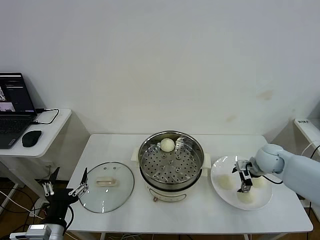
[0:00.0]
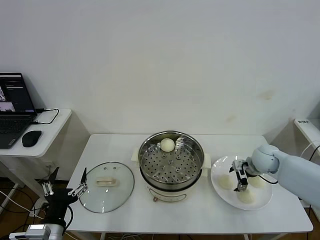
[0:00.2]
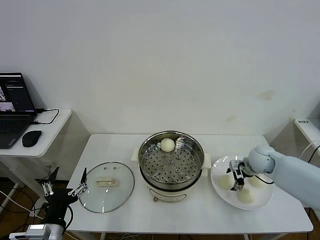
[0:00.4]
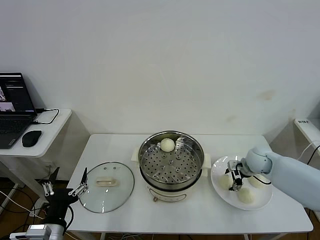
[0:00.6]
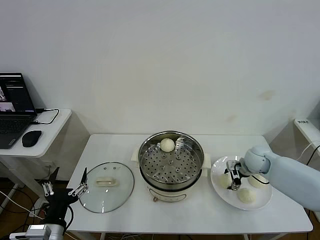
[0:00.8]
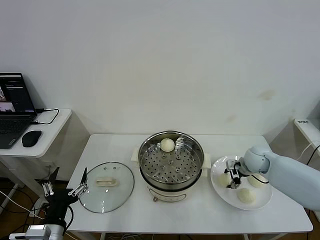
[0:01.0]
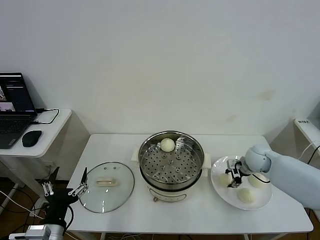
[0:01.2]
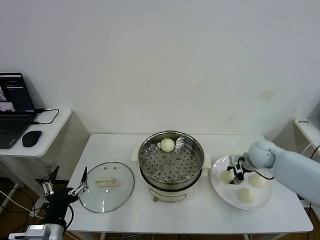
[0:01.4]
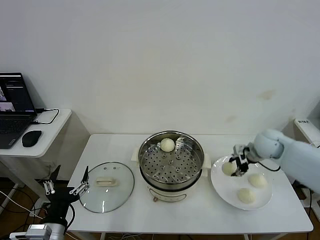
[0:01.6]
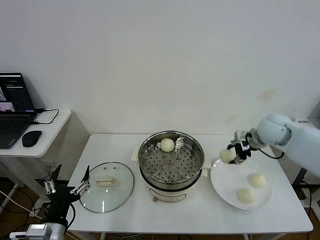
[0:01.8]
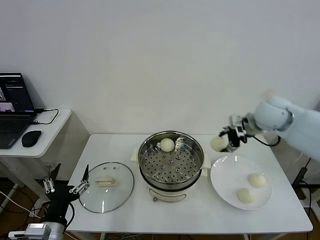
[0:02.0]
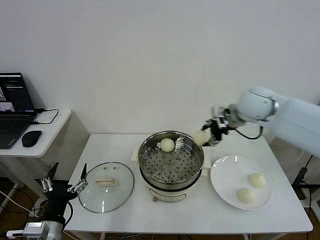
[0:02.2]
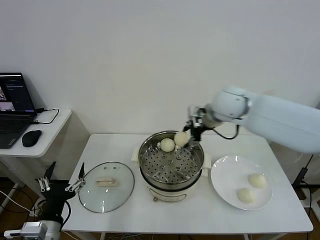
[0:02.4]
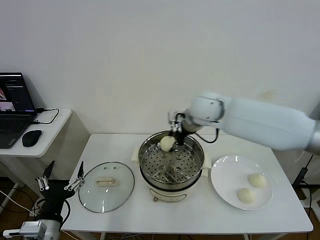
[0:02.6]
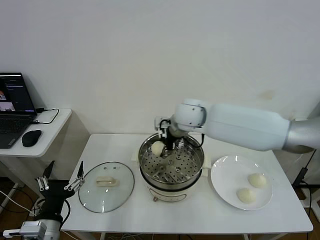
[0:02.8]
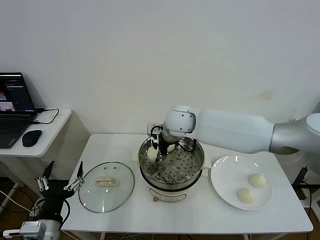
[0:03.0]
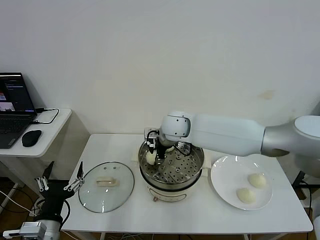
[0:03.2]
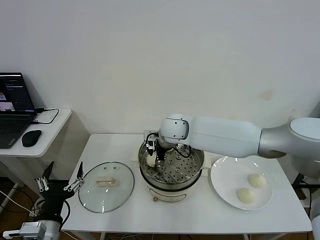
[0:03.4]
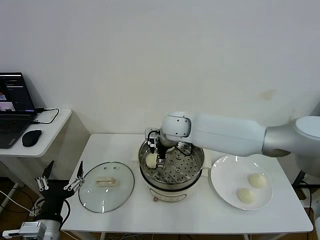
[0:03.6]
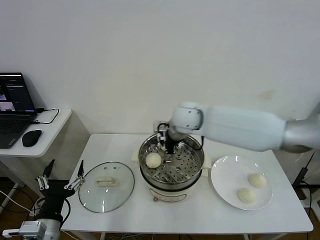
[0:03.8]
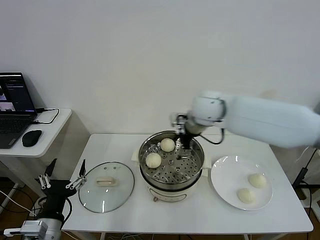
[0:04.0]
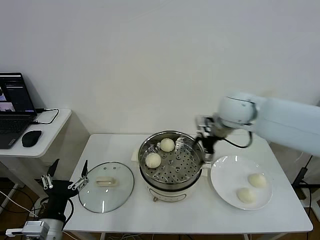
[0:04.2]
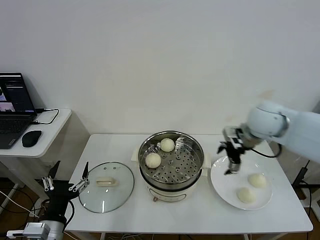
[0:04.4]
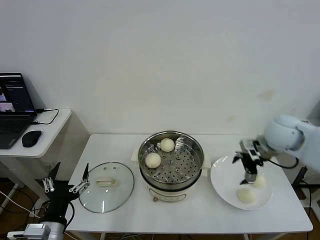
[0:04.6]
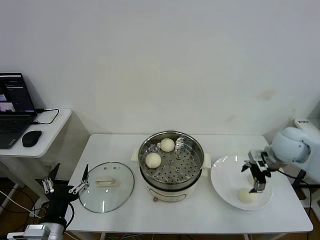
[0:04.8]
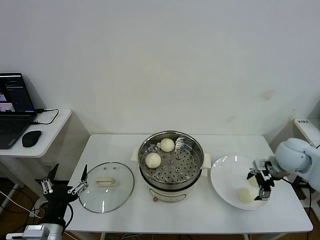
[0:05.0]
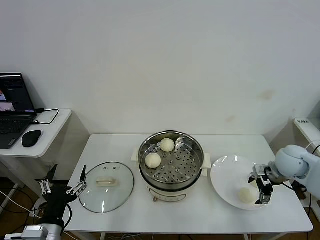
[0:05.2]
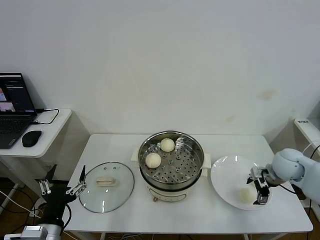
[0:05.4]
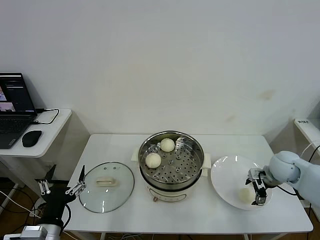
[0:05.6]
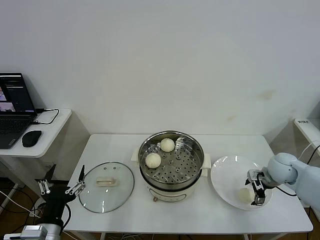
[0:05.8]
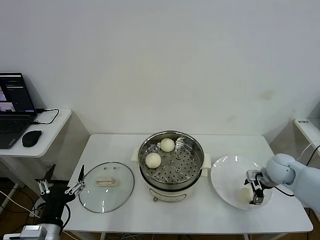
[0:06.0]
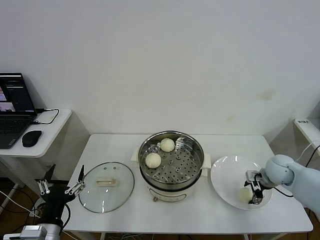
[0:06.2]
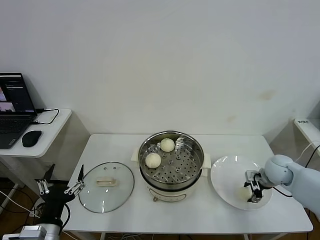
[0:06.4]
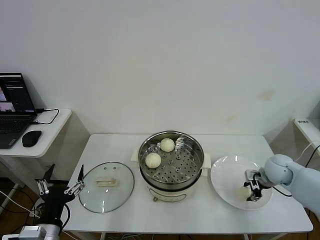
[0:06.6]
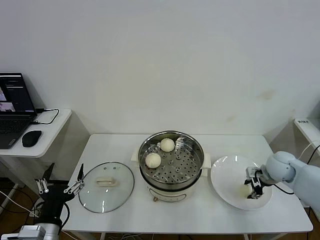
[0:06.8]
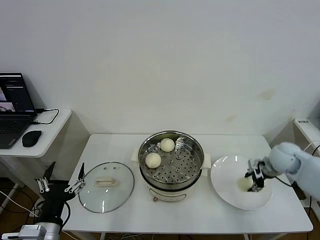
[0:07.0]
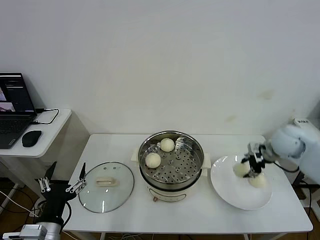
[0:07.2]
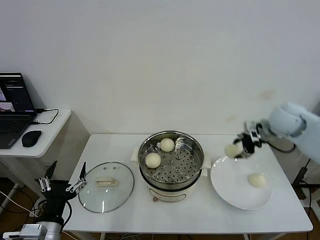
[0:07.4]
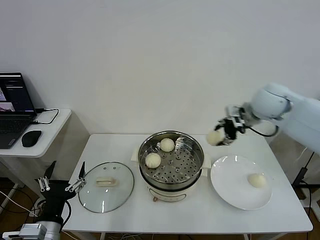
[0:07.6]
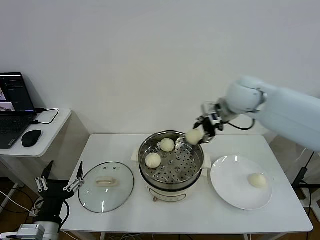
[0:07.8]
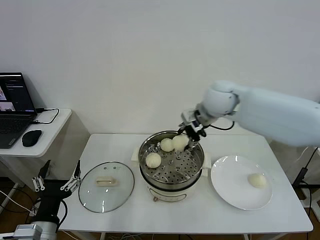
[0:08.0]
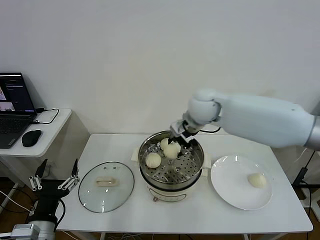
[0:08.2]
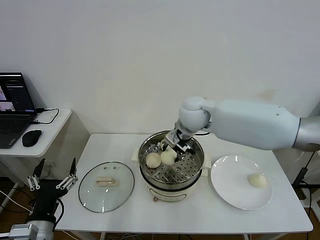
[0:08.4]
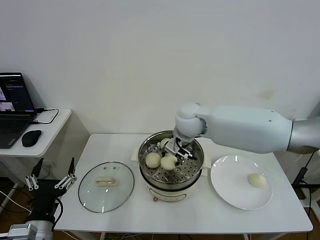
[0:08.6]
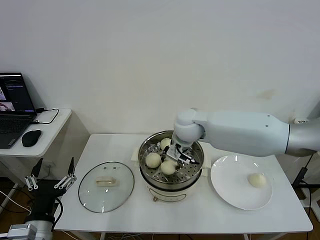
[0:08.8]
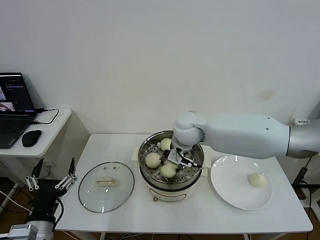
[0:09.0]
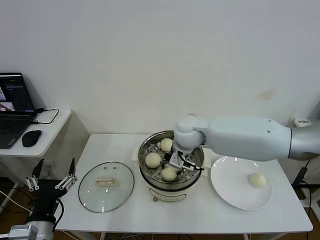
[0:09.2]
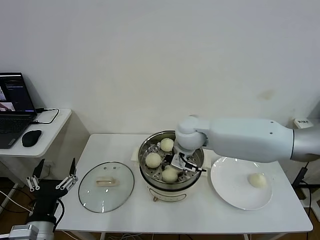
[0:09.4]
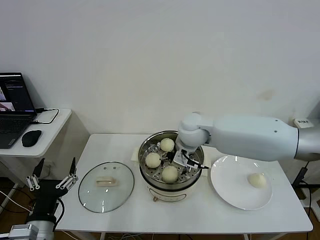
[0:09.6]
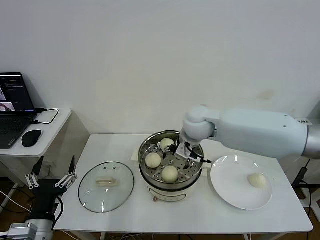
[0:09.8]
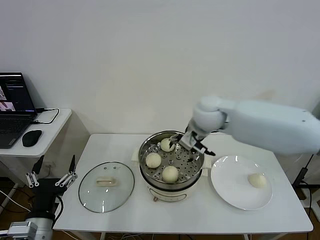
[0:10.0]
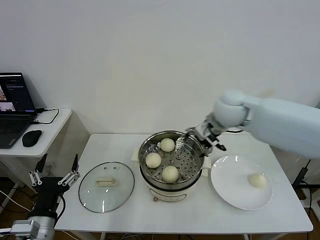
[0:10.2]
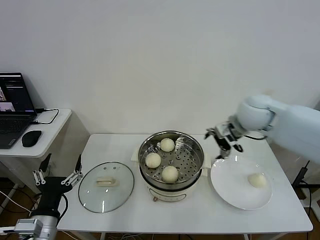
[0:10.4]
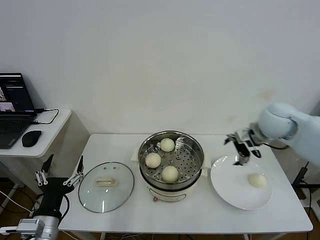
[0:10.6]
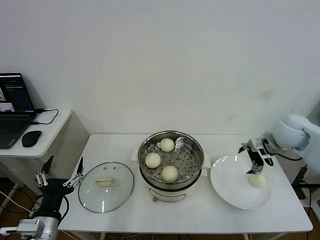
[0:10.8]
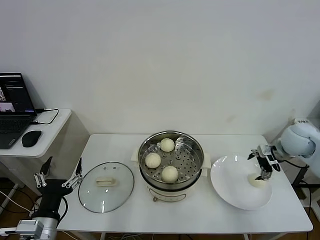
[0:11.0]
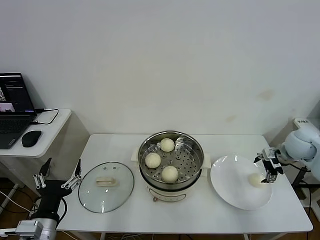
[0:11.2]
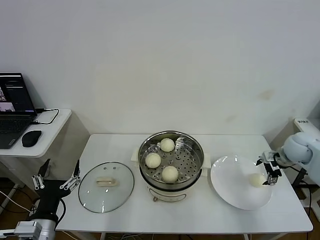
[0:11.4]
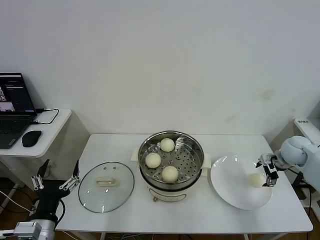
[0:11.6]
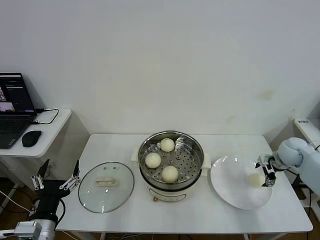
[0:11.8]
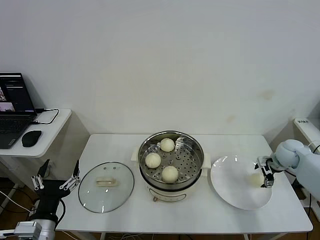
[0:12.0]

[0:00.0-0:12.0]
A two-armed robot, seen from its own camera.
Step, 0:01.0 to 0:03.4: Place the baozi on the steamer with right gripper.
Step, 0:03.6 to 0:06.2: Grasp the baozi in the plate with right gripper.
Step, 0:06.4 to 0:09.4: Place the baozi on the steamer with right gripper.
0:00.0 to 0:01.6: The right gripper travels upward by roughly 10 cm, and closes its fingers.
0:01.6 to 0:03.0: The right gripper shifts about 30 cm to the left.
0:03.0 to 0:04.4: The right gripper travels to the right by approximately 25 cm, and opens its fingers.
0:04.4 to 0:06.0: The right gripper is displaced downward and to the right by approximately 20 cm.
0:06.0 to 0:07.6: The right gripper is displaced upward and to the left by some 25 cm, and closes its fingers.
0:07.6 to 0:09.0: The right gripper shifts approximately 20 cm to the left and downward.
0:09.0 to 0:10.4: The right gripper shifts some 20 cm to the right, and opens up.
0:10.4 to 0:12.0: The right gripper is displaced to the right and downward by roughly 30 cm.

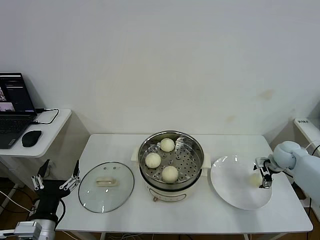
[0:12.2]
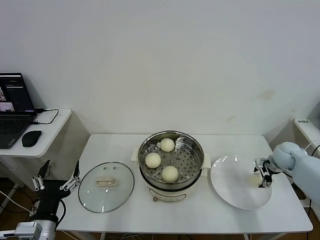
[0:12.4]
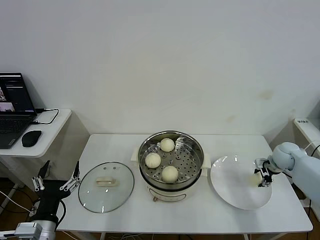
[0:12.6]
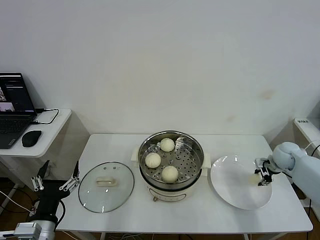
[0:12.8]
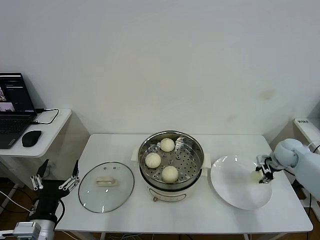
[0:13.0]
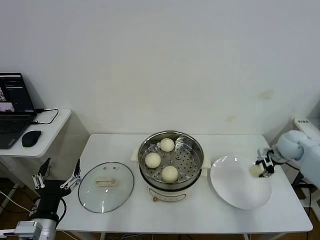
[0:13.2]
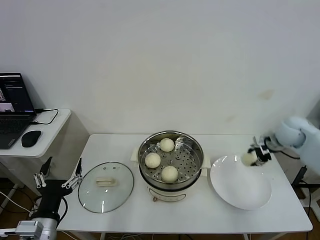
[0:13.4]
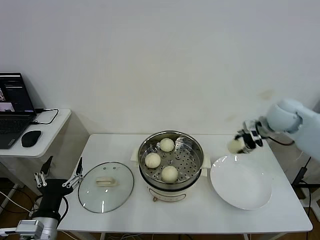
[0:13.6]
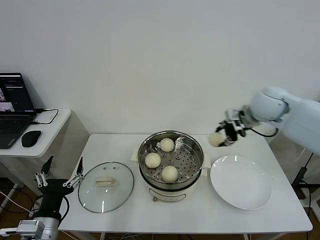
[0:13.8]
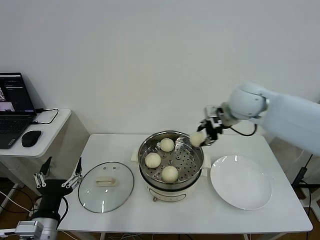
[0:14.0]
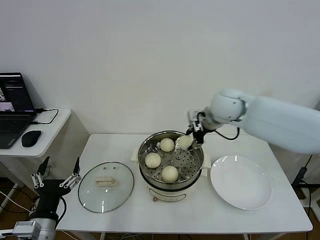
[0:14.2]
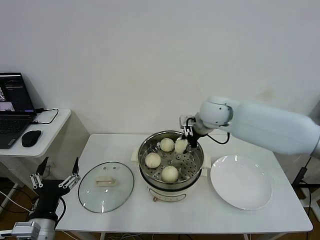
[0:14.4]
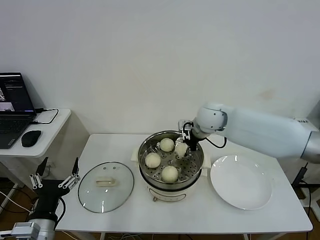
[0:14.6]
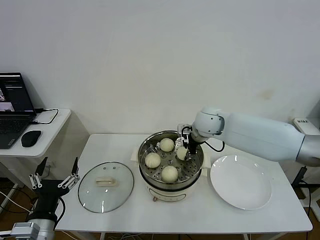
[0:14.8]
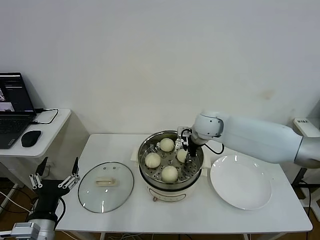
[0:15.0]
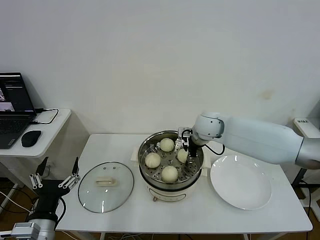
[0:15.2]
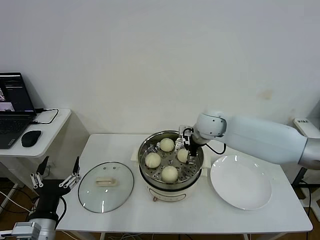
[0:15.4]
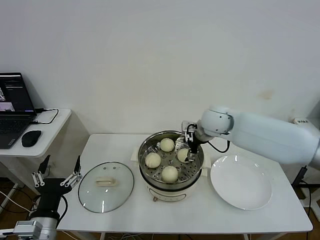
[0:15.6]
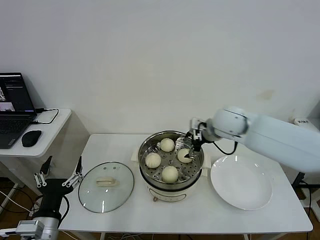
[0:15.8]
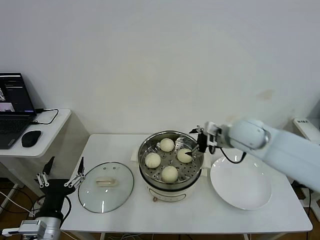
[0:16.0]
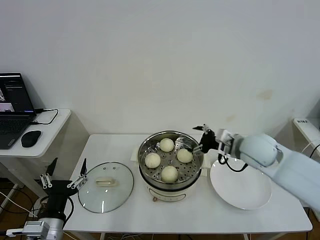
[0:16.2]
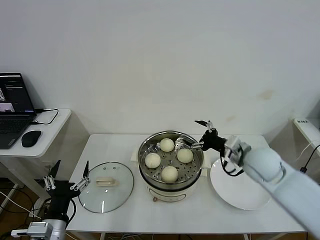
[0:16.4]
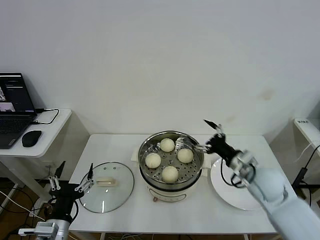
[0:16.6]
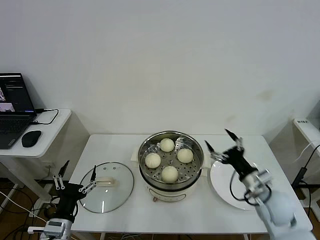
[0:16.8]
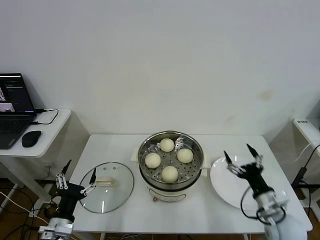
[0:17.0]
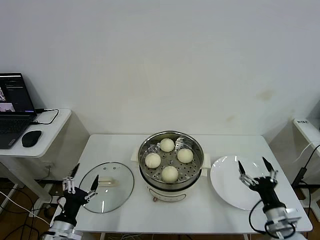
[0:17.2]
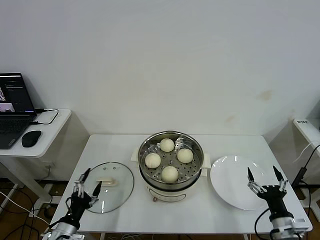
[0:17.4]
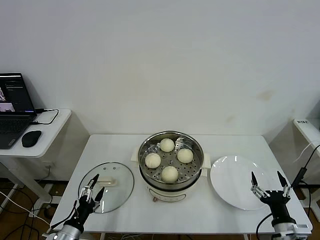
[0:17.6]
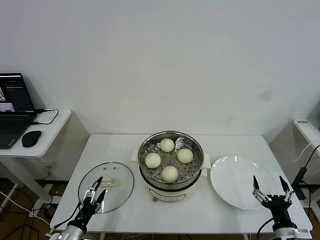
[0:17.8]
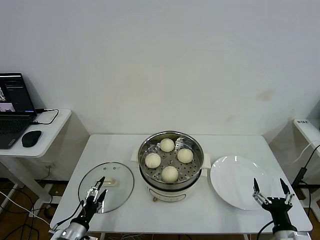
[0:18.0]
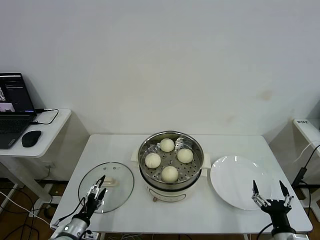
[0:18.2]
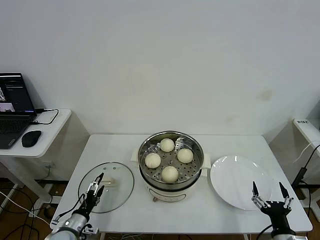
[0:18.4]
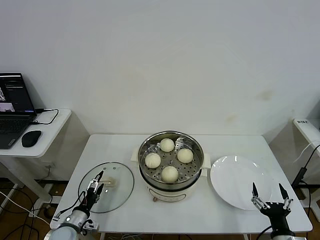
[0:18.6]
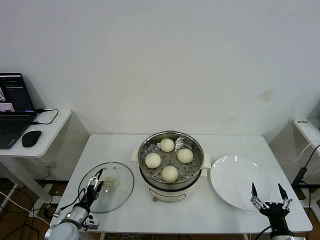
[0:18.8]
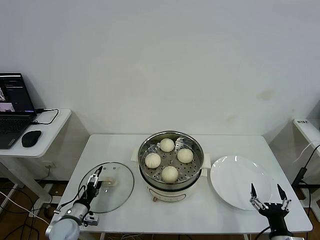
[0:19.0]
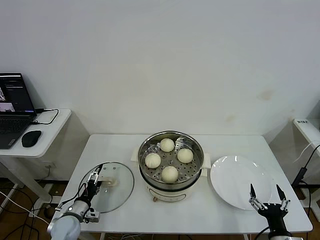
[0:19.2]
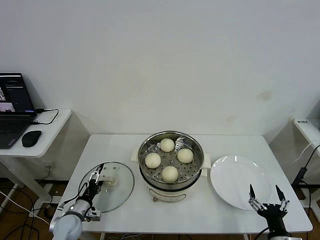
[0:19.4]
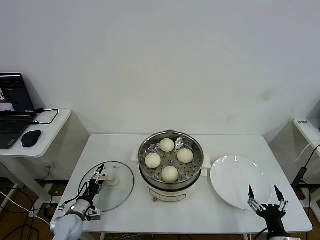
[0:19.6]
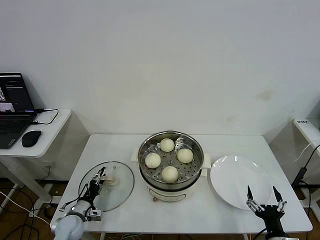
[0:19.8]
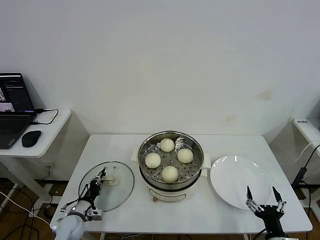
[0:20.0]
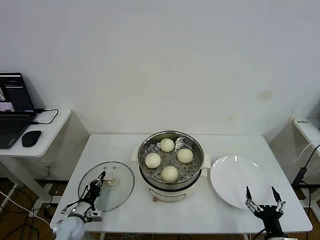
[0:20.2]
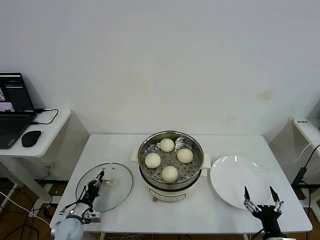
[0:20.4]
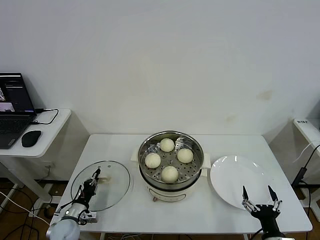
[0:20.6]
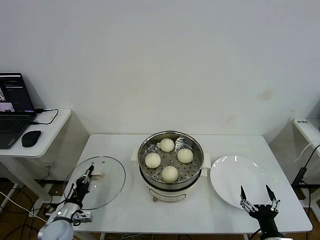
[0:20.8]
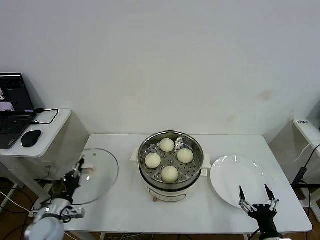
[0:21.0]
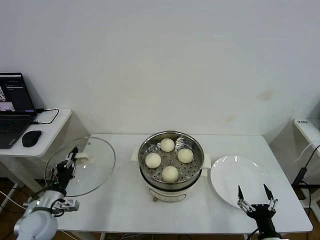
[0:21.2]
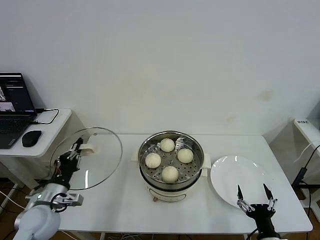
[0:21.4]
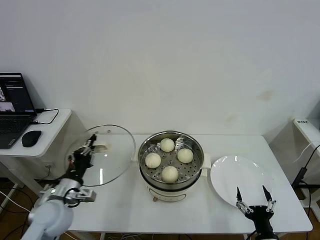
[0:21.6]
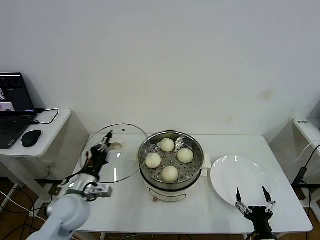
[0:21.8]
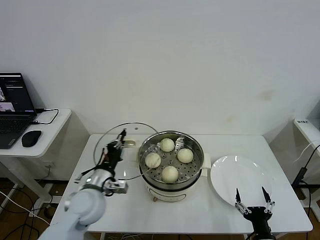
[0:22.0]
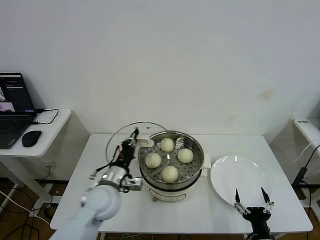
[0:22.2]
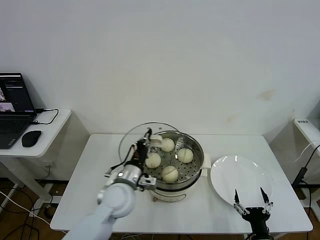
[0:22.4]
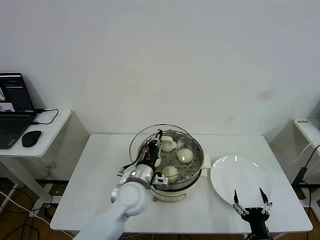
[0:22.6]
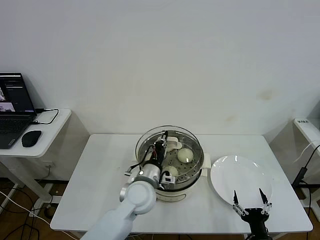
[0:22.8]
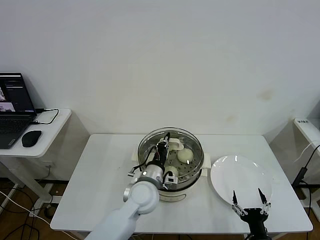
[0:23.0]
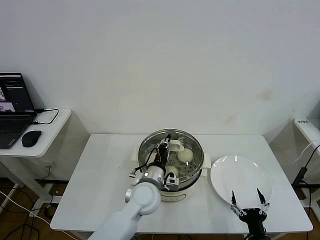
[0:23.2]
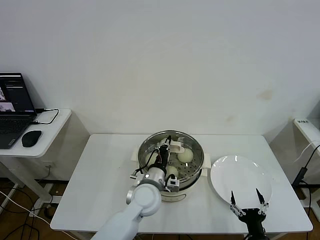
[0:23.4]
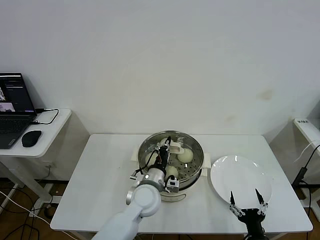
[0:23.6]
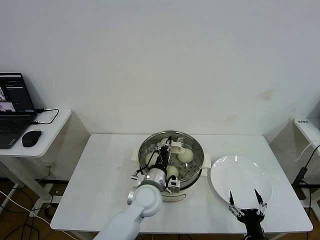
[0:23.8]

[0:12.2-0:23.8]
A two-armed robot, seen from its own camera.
Step, 0:12.6 to 0:15.4: Place the baozi on the steamer with right gripper.
Step, 0:15.6 to 0:20.2: Grasp the pot lid with left gripper.
0:12.2 to 0:13.6: The right gripper heads upward and to the left, covering approximately 20 cm, and closes.
0:13.6 to 0:15.0: The right gripper heads to the left, covering roughly 20 cm.
0:15.0 to 0:16.6: The right gripper shifts approximately 20 cm backward and to the right, and opens.
0:16.6 to 0:18.0: The right gripper is displaced backward and downward by roughly 25 cm; the left gripper shifts some 10 cm downward.
0:18.0 to 0:19.4: The left gripper moves forward, approximately 10 cm.
0:19.4 to 0:21.0: The left gripper moves upward, some 5 cm, and closes.
0:21.0 to 0:22.4: The left gripper heads to the right and upward, covering roughly 25 cm.
0:22.4 to 0:23.8: The left gripper travels to the right by about 10 cm.
